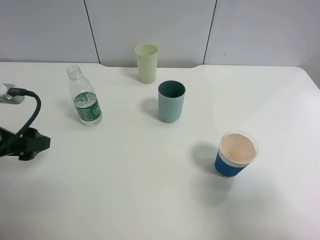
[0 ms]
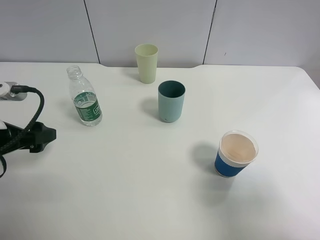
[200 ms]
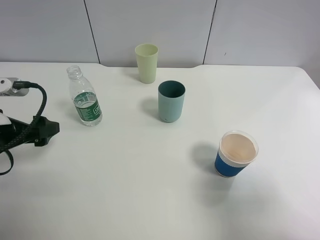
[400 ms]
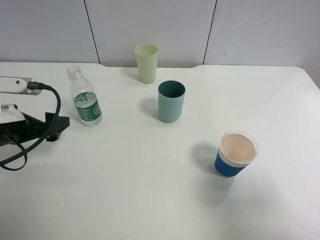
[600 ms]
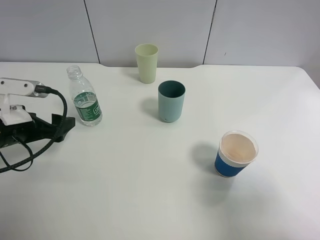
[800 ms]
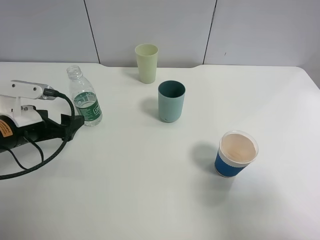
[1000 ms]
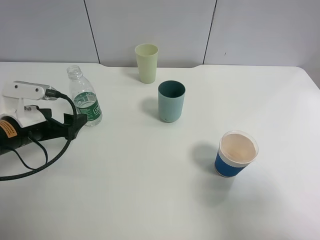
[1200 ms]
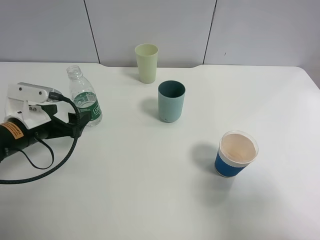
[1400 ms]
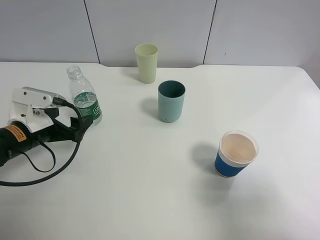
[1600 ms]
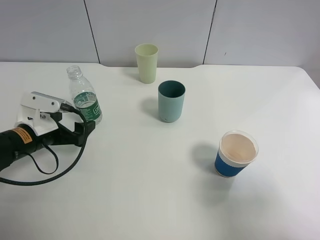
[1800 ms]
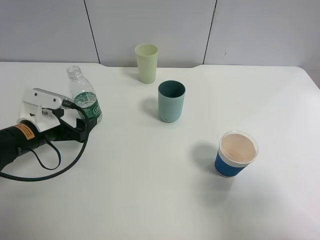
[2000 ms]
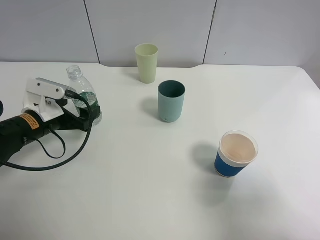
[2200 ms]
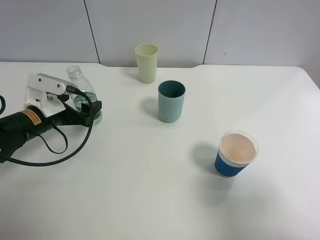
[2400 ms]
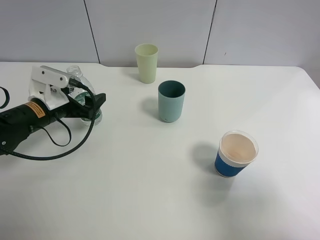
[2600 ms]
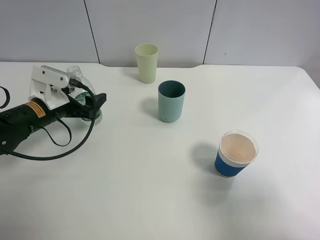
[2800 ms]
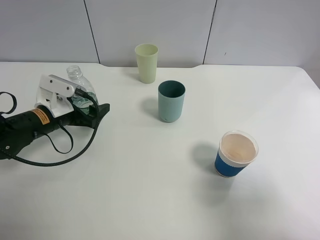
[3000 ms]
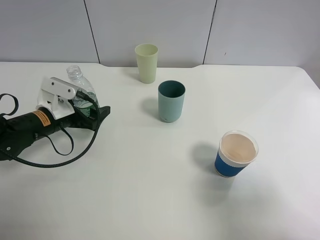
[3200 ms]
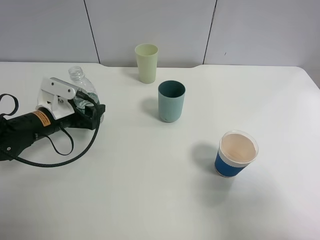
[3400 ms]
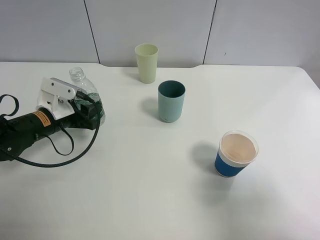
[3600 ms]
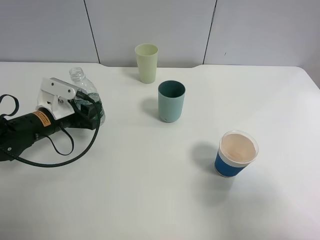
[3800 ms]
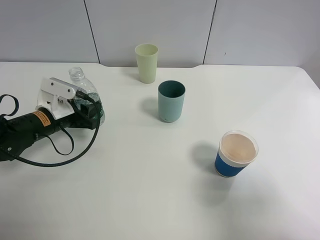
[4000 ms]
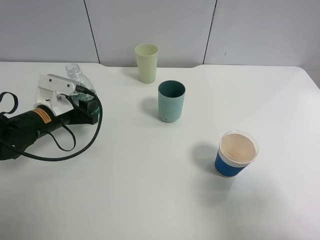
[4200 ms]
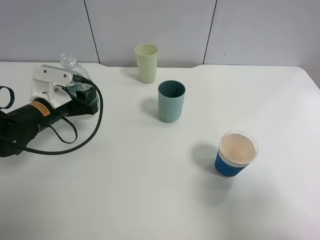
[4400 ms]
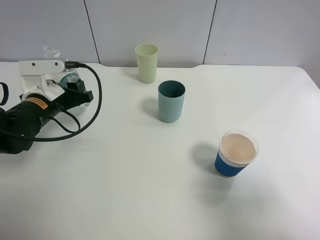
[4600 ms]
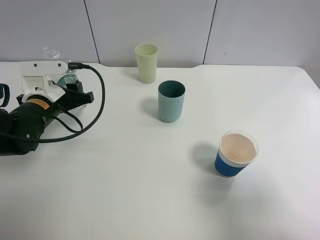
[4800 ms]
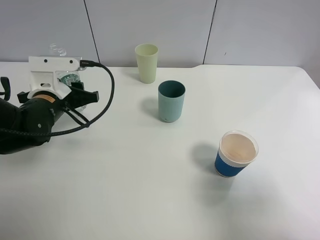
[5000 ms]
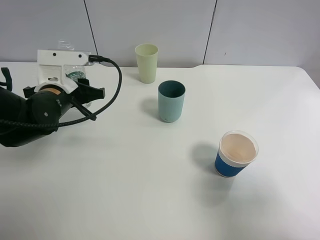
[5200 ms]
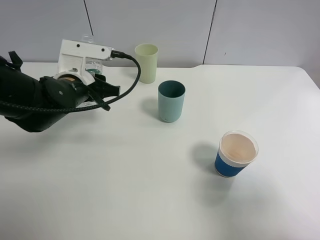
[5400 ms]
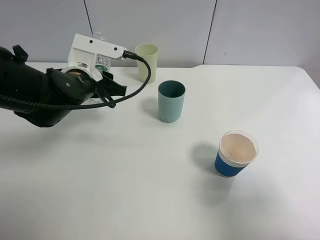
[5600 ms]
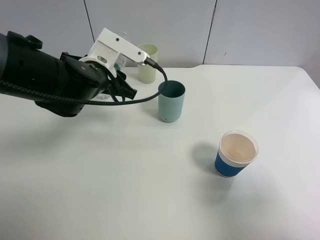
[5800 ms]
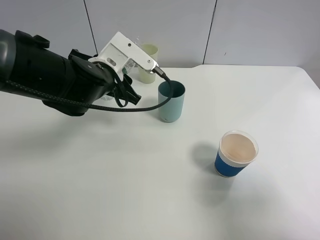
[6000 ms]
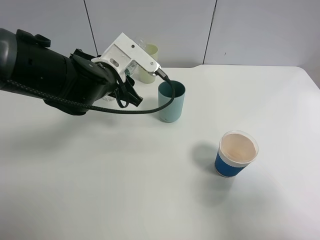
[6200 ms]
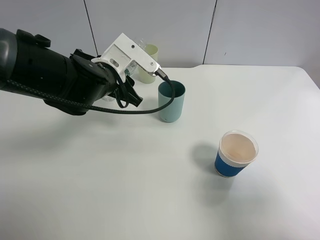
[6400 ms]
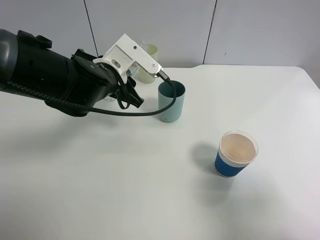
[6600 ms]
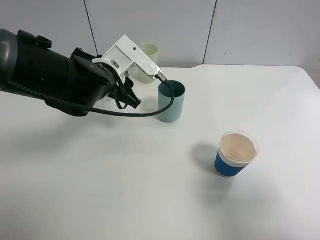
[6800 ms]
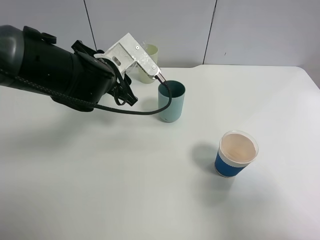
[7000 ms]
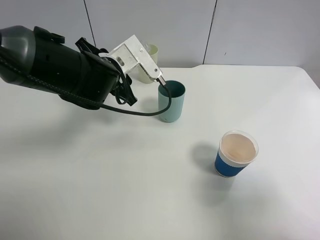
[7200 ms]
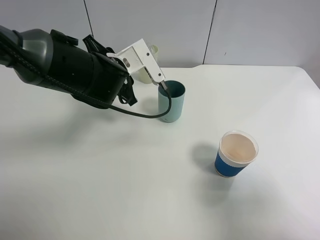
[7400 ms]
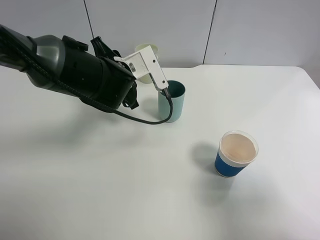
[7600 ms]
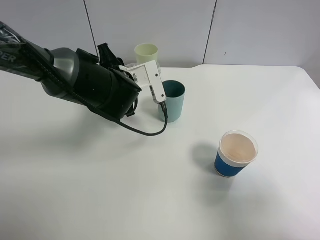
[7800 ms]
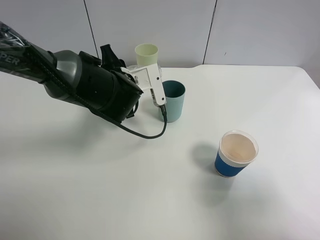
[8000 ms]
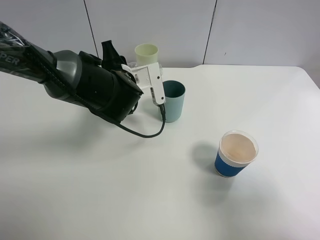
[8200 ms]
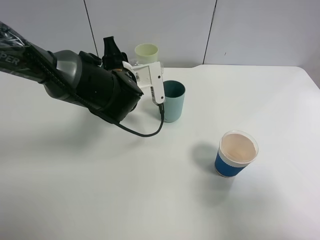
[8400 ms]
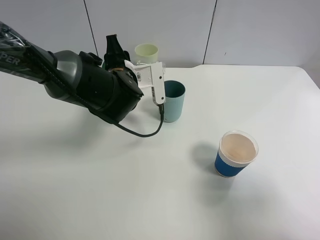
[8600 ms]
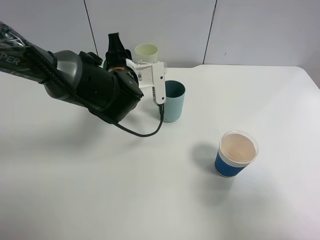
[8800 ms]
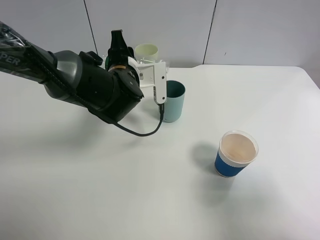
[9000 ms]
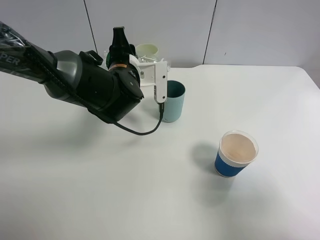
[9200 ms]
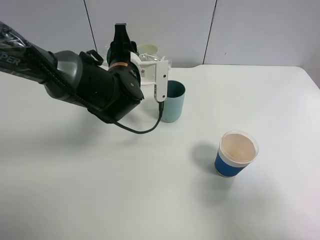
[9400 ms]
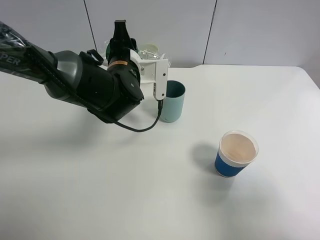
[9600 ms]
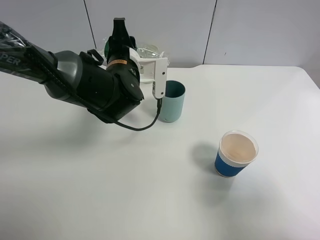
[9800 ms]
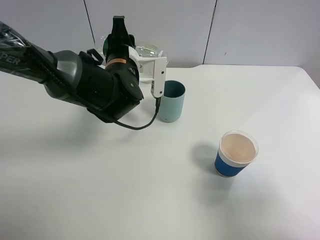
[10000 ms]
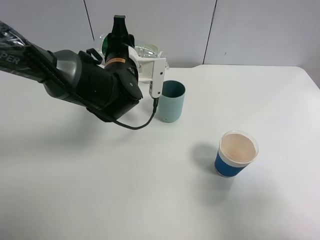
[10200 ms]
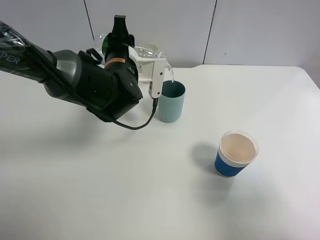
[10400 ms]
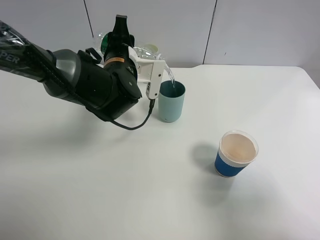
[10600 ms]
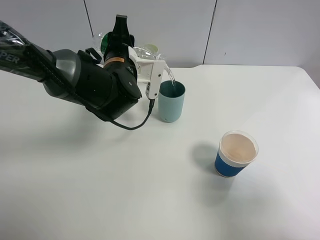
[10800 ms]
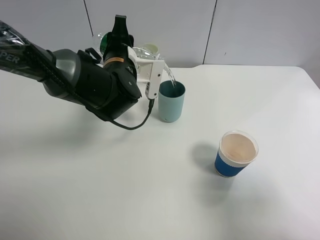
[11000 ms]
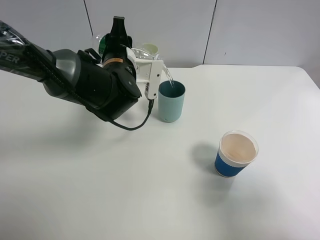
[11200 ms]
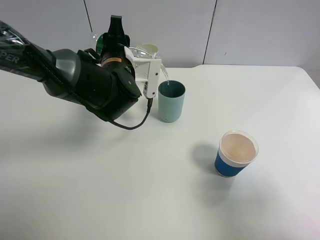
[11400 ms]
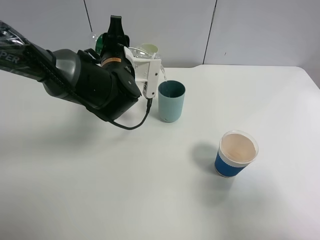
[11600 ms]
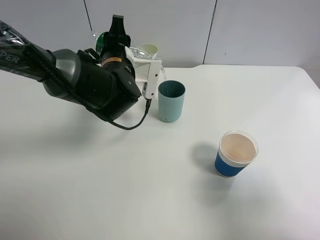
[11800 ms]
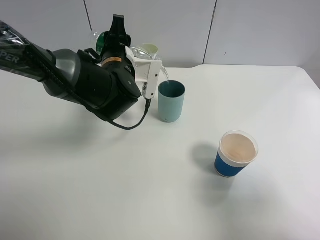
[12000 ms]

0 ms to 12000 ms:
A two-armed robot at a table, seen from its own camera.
Task of the whole recording: use a clamp to hold the bottle of the drink, pour the beverage into a random cup, then clamp the cup containing the drink and pour the drink into another random cup.
Step, 0 ms to 4000 ms: Pick up the water bottle with left gripper.
0 ms to 1600 ms: The left gripper travels downward and forward by approximately 10 cm.
1600 ms to 3000 ms: The left gripper travels forward by about 5 cm.
3000 ms to 4400 ms: The left gripper closes up.
4400 ms to 6000 ms: The left gripper moves to the right and upward, about 15 cm.
9000 ms to 12000 ms: The grippers stay close to where they were, moving slightly.

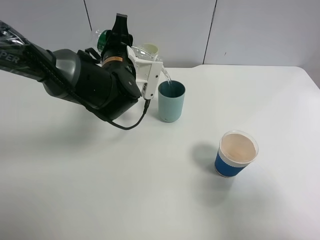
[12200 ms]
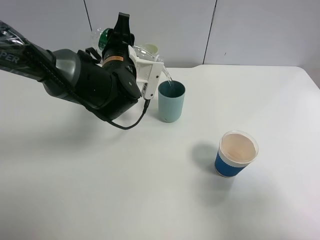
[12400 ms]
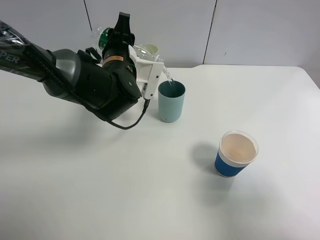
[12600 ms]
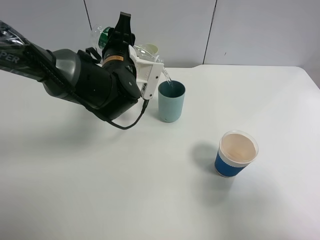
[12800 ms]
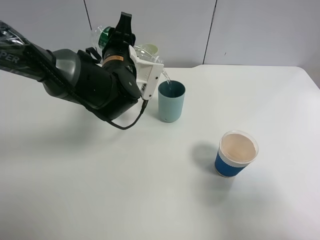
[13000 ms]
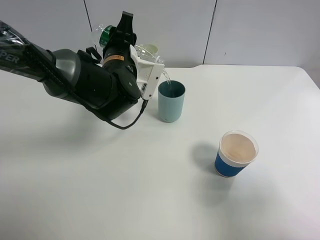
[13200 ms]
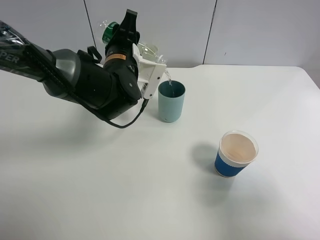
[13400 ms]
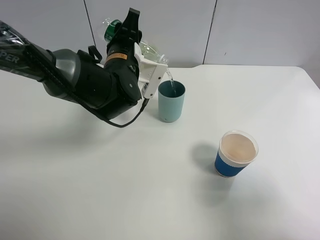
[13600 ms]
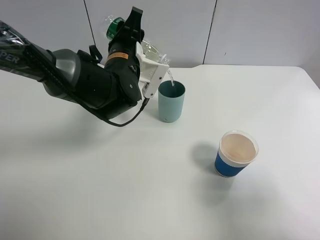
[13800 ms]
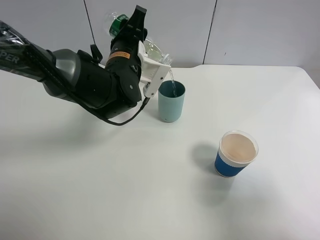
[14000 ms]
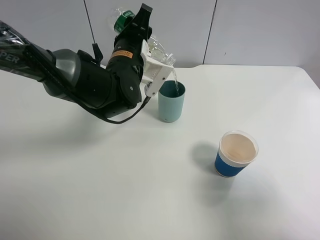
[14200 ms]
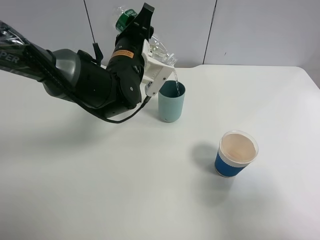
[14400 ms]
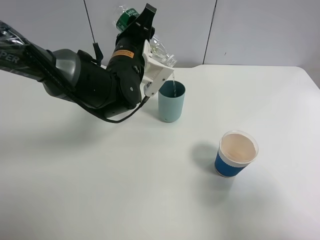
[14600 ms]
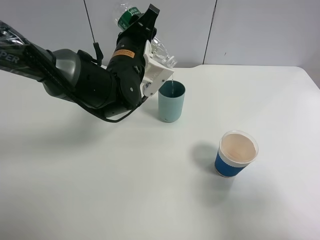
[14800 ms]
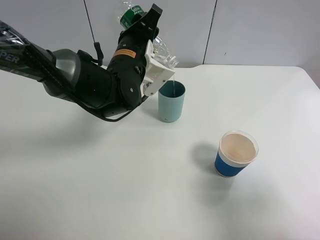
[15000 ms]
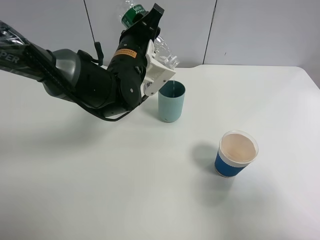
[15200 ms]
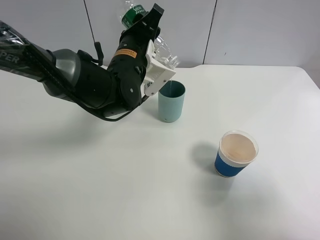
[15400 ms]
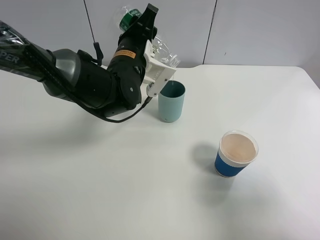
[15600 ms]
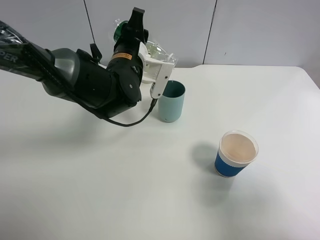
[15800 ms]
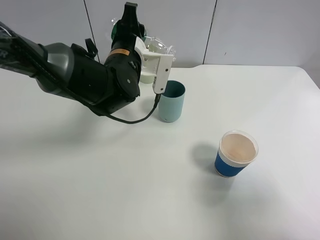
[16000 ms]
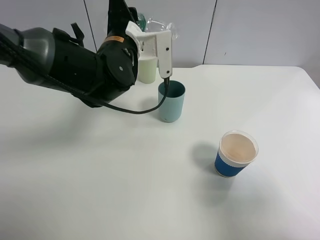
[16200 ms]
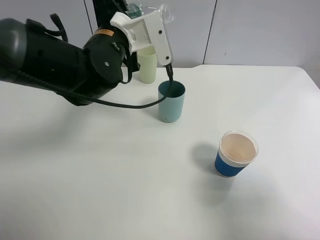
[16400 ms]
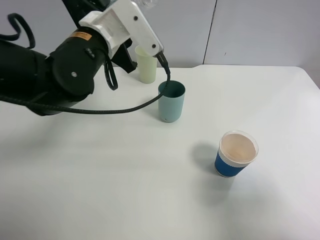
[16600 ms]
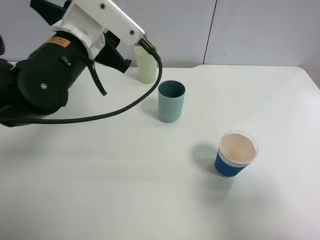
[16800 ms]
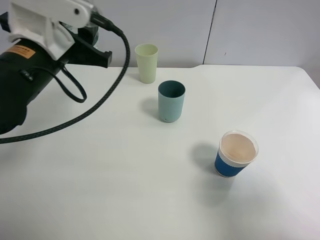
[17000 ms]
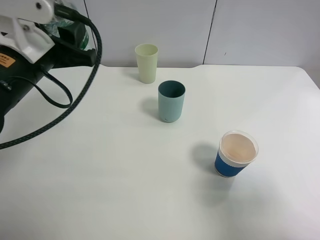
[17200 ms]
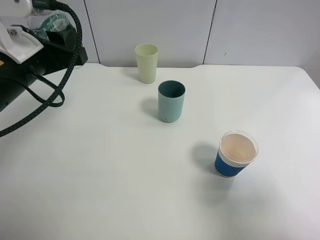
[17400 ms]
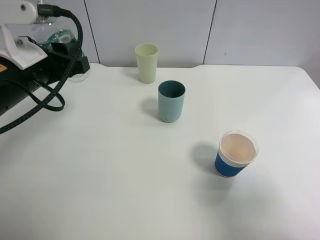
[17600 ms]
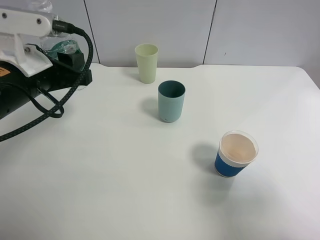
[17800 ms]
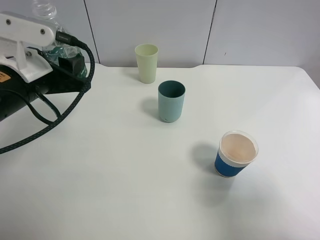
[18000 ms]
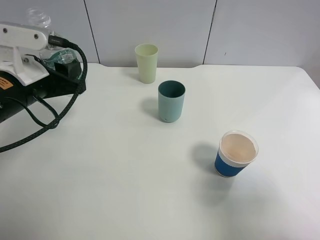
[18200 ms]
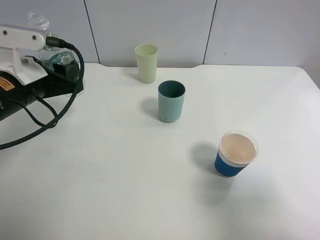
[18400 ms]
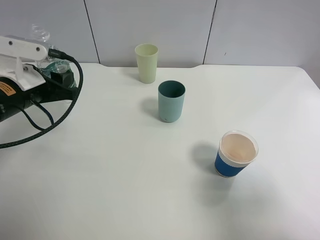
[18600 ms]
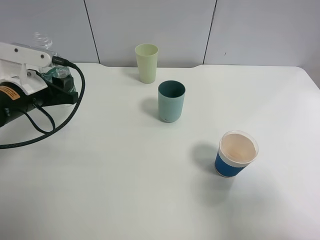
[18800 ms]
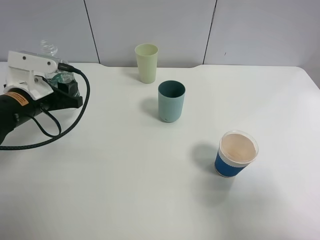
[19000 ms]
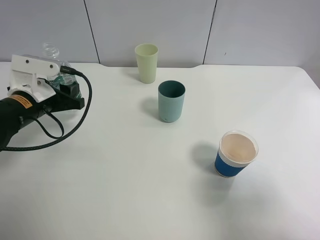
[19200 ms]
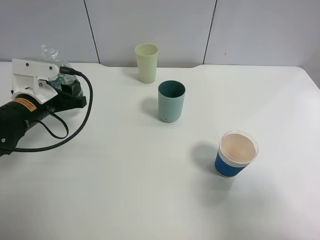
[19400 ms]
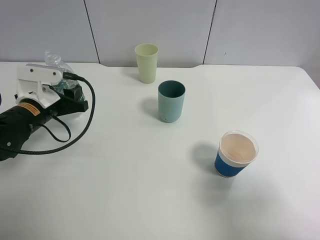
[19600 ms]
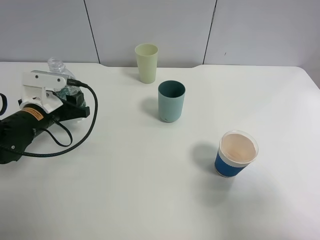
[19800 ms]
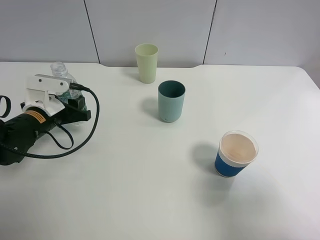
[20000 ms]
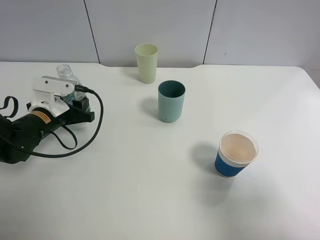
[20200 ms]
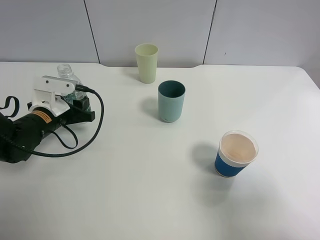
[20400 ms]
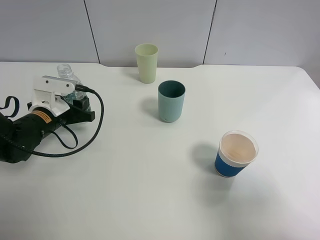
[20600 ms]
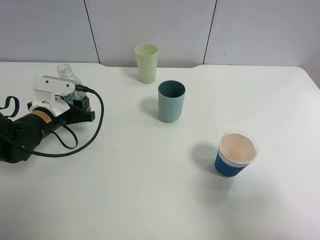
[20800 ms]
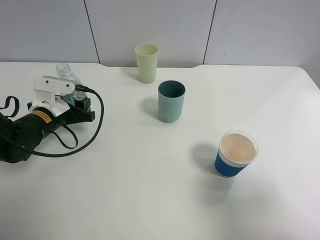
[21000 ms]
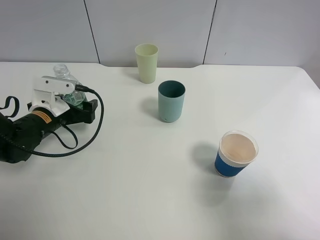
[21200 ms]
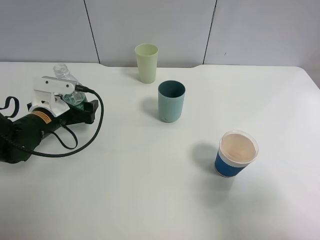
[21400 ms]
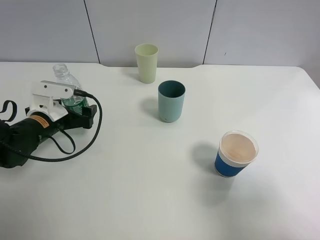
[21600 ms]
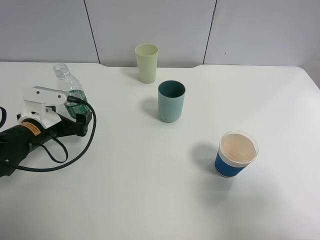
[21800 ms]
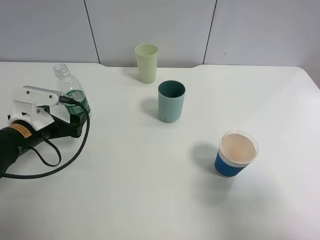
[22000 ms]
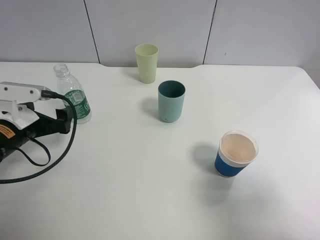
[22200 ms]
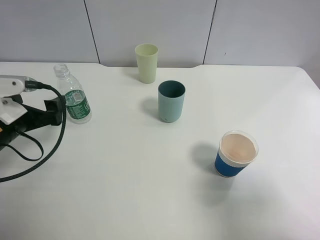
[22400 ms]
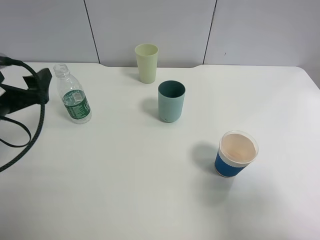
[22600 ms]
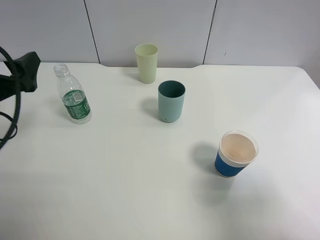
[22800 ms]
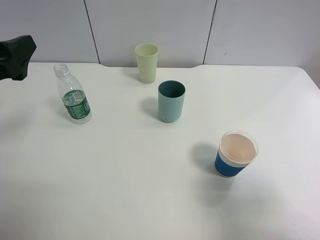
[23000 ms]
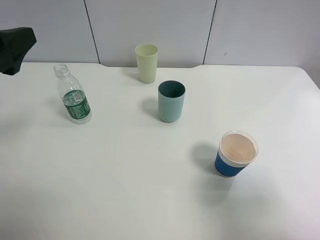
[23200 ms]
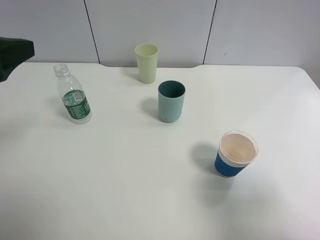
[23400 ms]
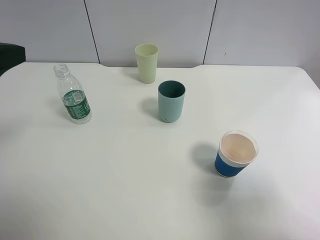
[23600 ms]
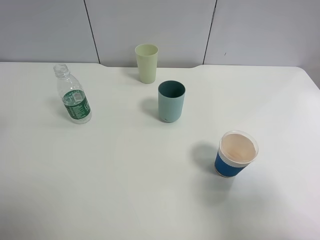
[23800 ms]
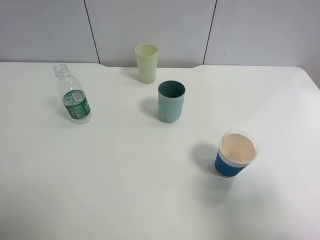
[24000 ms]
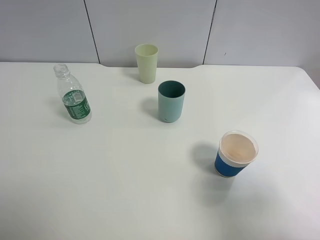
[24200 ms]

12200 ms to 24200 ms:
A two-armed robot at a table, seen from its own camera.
Task of the whole recording: use a clamp to hold the bottle of the drink, pour the beverage into a random cup, then clamp the cup containing the drink and pour the drink into another random cup.
Step, 12200 ms to 15800 ms: Pour the water into the blue plastic cup with left gripper.
Step, 16000 ms to 21200 ms: Place the water bottle on the table with left gripper.
12200 ms to 13800 ms: The grippers move only a little.
13800 ms to 15200 ms: The grippers move only a little.
15200 ms to 16600 ms: The left gripper heads to the left and backward, covering roughly 10 cm.
16600 ms to 18200 ms: The left gripper travels to the left by some 10 cm.
18200 ms to 19800 ms: The left gripper moves downward, approximately 10 cm.
19800 ms to 21200 ms: The left gripper opens its fingers.
21200 ms to 22600 ms: The left gripper travels upward and backward by roughly 15 cm.
22600 ms to 24200 ms: The left gripper moves upward and backward, about 15 cm.
